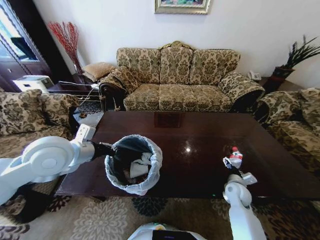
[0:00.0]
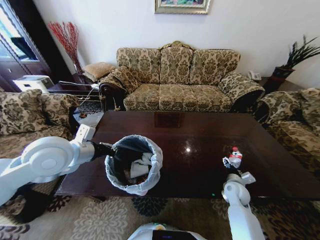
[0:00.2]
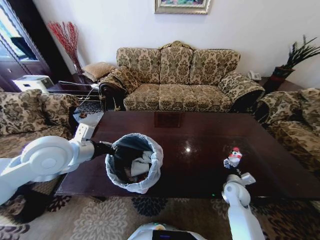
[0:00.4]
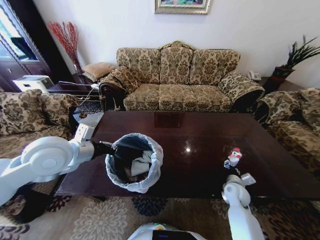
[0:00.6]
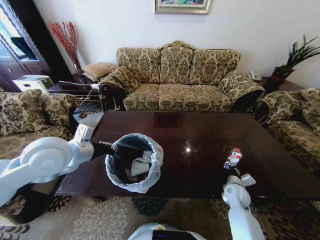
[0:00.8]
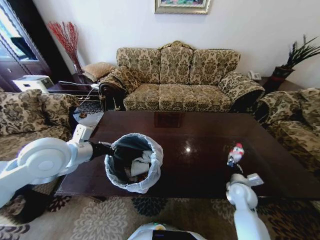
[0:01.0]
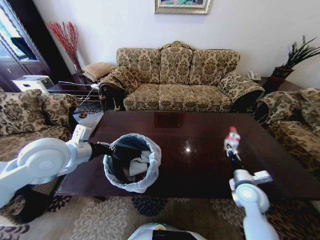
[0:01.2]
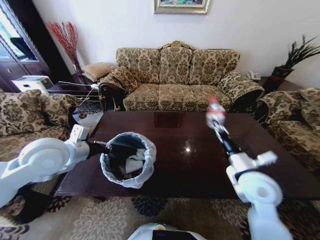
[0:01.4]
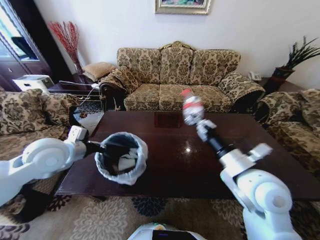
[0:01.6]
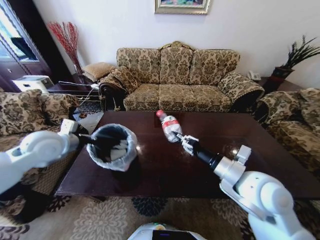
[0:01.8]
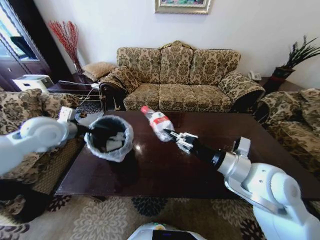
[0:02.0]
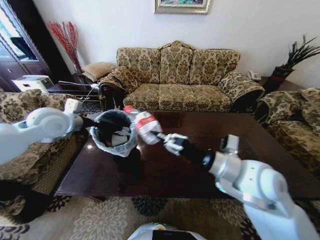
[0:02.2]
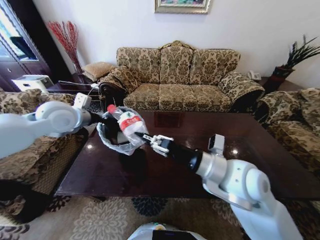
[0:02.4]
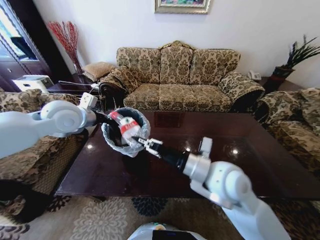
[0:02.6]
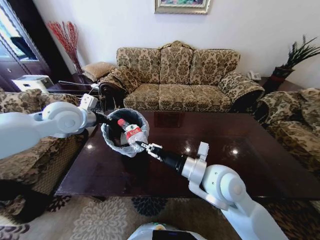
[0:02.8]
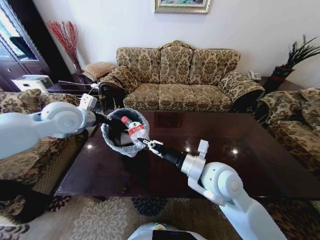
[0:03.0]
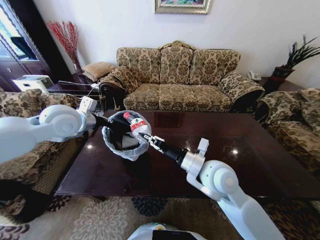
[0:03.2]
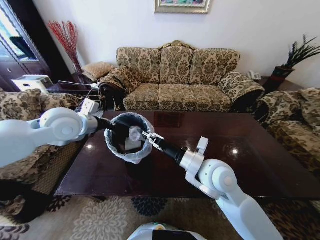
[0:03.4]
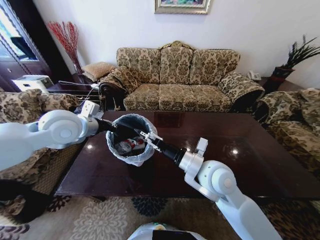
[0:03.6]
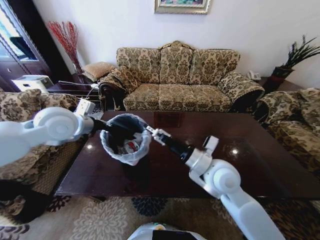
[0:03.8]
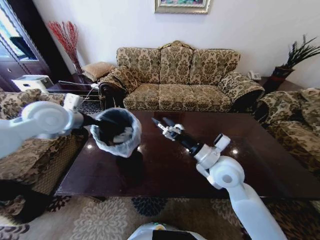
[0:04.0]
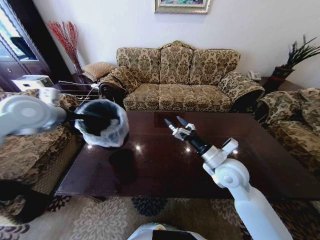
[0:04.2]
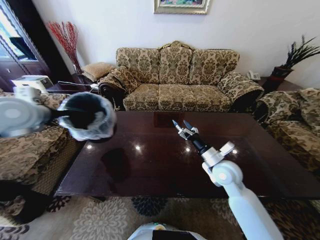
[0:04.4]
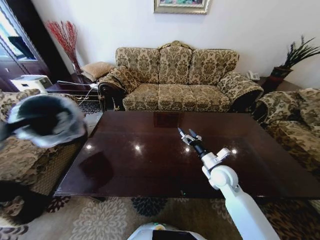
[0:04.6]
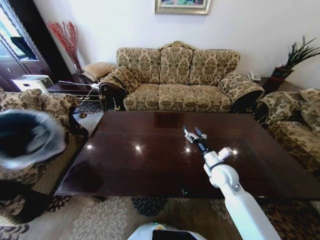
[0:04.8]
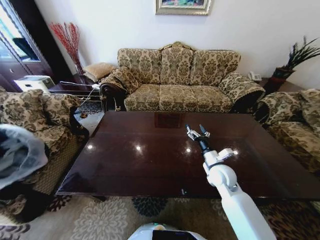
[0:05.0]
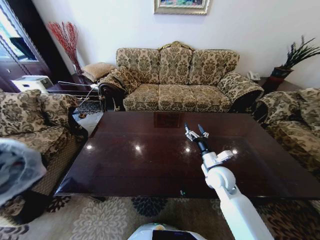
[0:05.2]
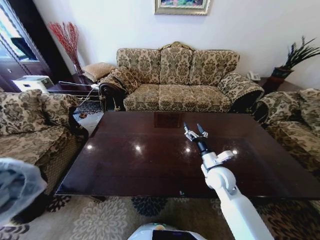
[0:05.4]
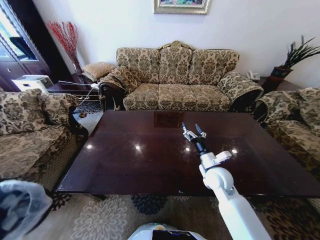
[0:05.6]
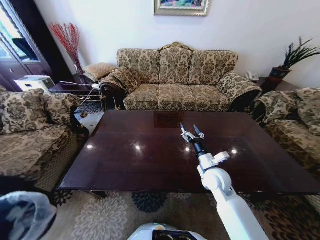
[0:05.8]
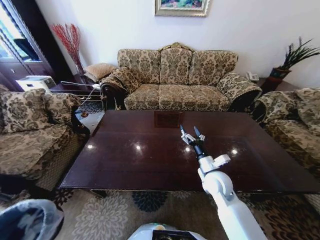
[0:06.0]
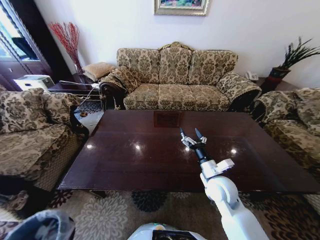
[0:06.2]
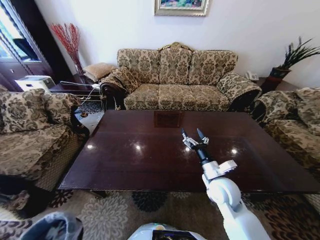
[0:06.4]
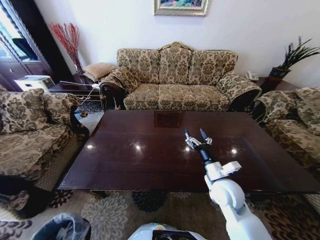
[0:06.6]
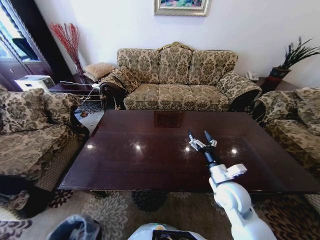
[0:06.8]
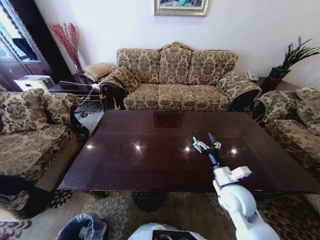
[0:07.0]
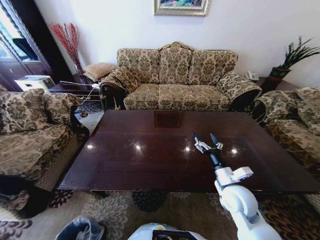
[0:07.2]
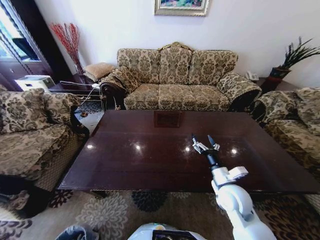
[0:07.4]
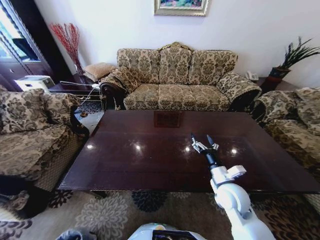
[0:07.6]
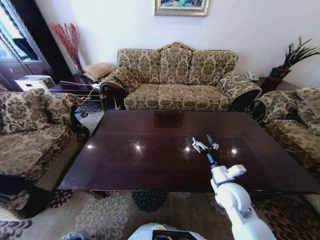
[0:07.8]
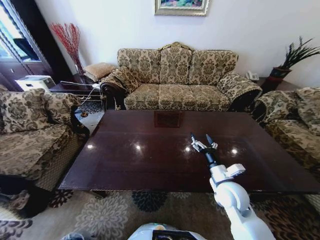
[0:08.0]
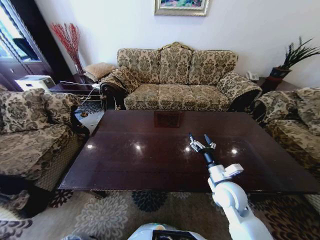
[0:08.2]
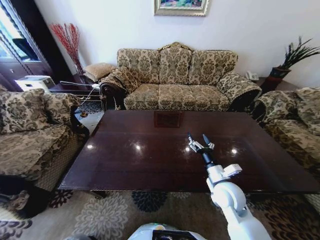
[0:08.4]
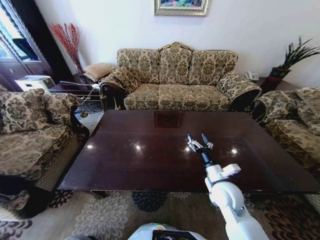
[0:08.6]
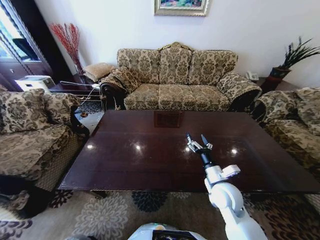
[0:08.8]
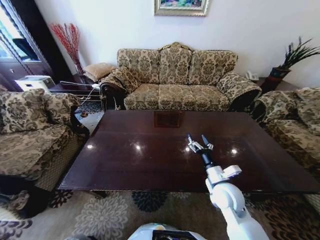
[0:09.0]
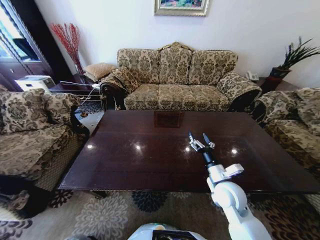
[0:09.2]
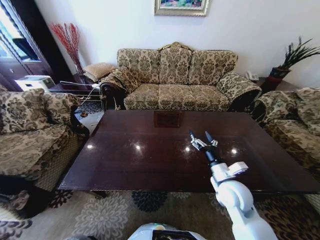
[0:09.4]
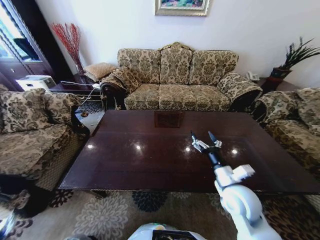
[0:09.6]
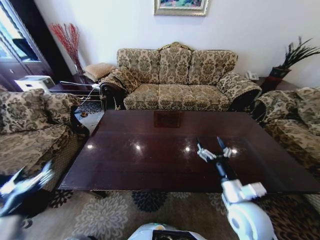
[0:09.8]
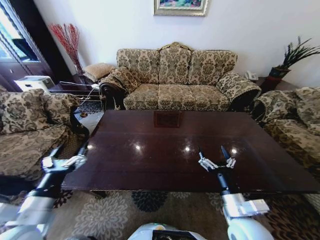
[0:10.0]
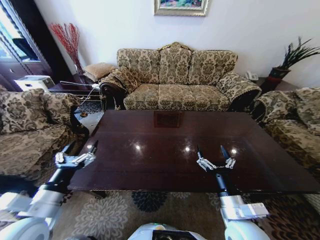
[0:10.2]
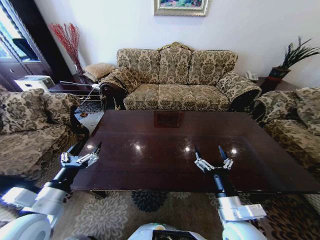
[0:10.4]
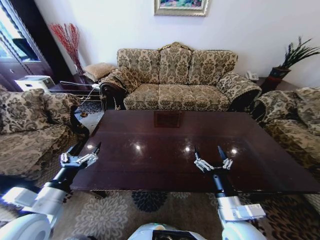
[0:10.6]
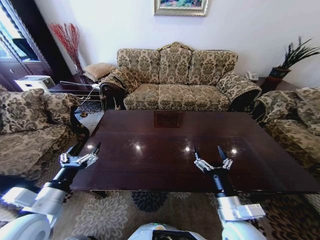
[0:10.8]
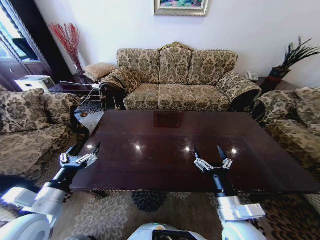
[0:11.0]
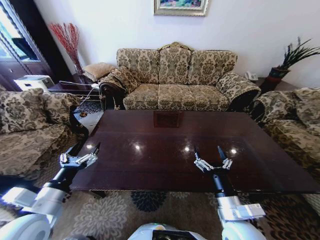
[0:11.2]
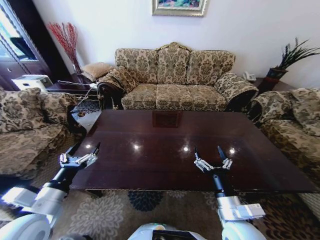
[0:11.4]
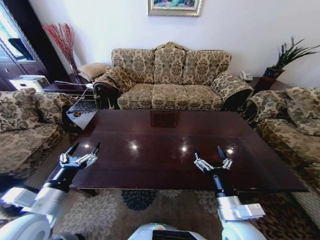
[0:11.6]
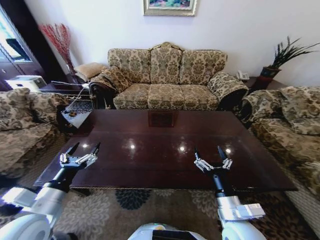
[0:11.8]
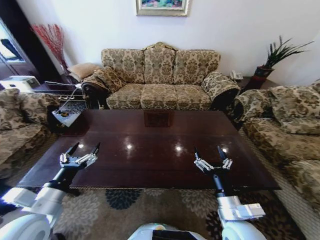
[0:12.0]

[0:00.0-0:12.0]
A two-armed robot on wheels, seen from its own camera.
Task of the whole recording: Move to the front of the table and place the trash on the table into the trash bin.
0:00.0 to 0:01.6: The right gripper shifts some 30 cm upward and to the left, and closes, while the left gripper changes place by about 5 cm.
0:01.6 to 0:03.0: The right gripper shifts approximately 10 cm to the left; the left gripper shifts about 10 cm forward and upward.
0:03.0 to 0:04.4: The right gripper goes approximately 15 cm downward, to the right and forward, and opens up. Meanwhile the left gripper goes approximately 10 cm to the left.
0:04.4 to 0:06.0: The left gripper moves backward and downward, about 50 cm.
0:06.0 to 0:07.6: The left gripper goes some 25 cm downward. The right gripper ends up approximately 5 cm from where it was.
0:07.6 to 0:09.0: The left gripper shifts some 10 cm backward, and opens its fingers.
0:09.0 to 0:10.4: The right gripper moves backward, some 10 cm; the left gripper travels upward and forward by roughly 40 cm.

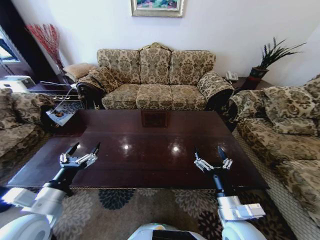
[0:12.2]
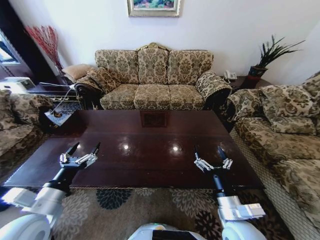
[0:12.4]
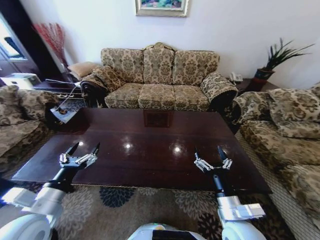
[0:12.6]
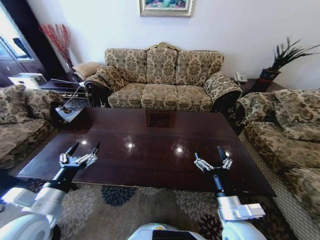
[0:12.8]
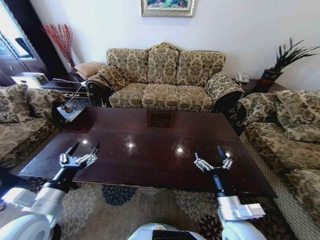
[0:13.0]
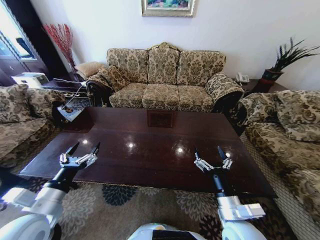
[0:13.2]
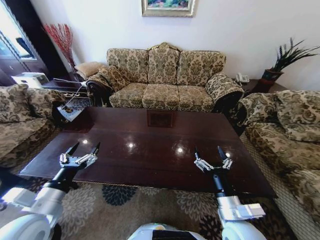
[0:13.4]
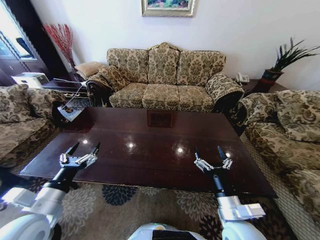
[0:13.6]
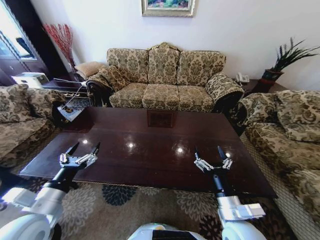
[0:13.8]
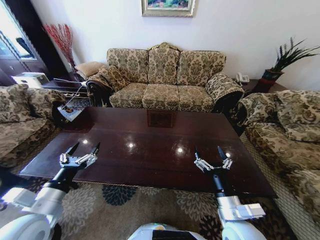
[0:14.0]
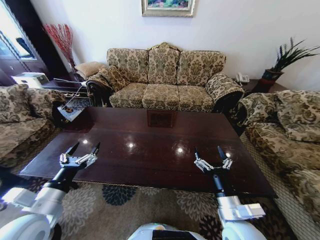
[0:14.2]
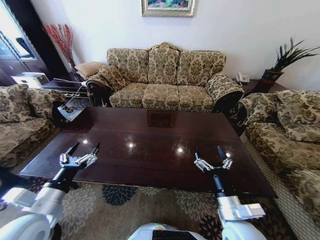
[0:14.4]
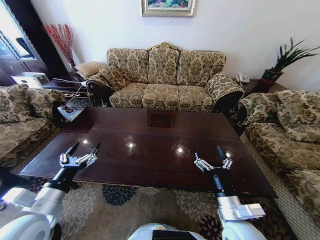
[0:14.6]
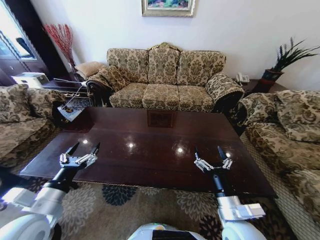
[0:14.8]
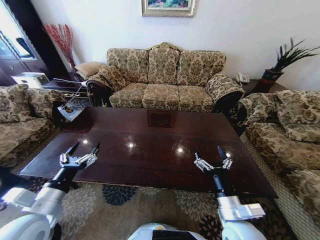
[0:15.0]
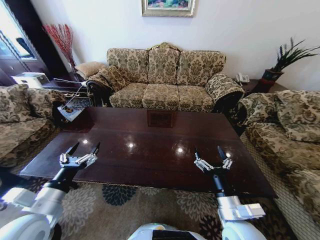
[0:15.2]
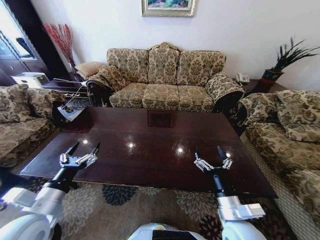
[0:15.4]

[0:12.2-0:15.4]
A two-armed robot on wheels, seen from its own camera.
Task of the whole recording: Move to the front of the table and place the trash on the table into the trash bin.
0:13.8 to 0:15.4: Neither gripper changes place.
